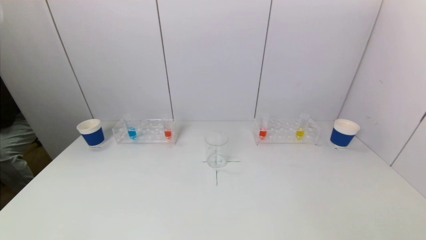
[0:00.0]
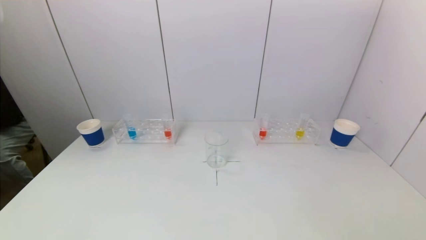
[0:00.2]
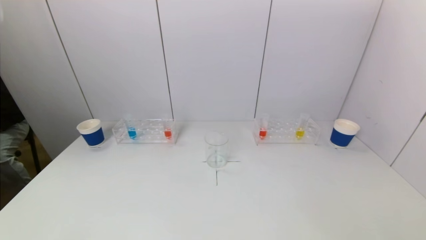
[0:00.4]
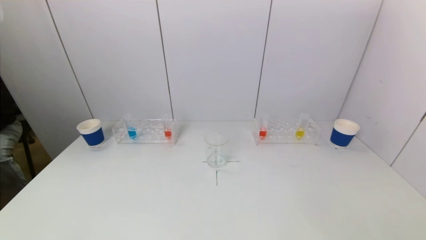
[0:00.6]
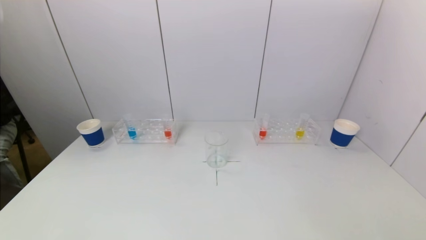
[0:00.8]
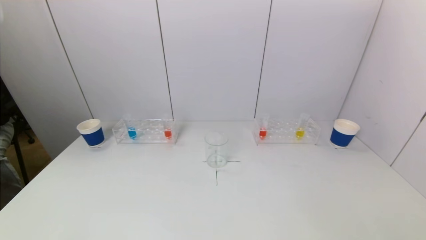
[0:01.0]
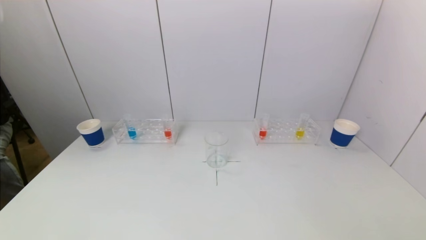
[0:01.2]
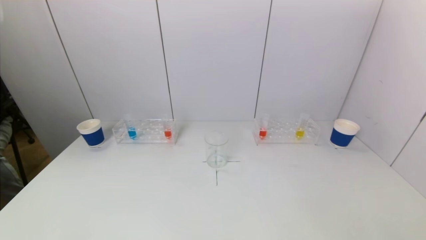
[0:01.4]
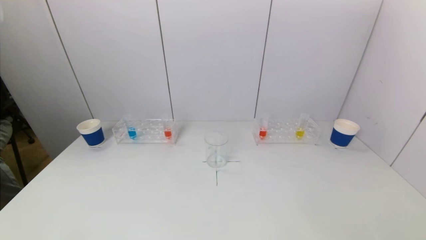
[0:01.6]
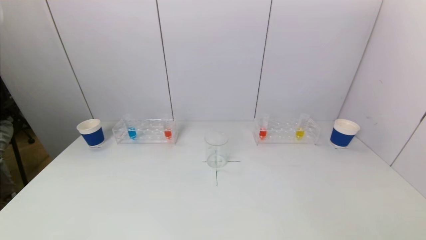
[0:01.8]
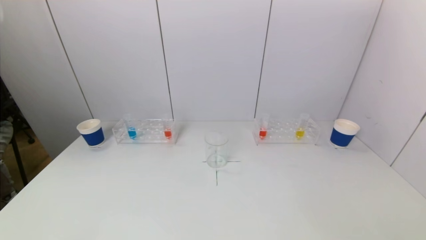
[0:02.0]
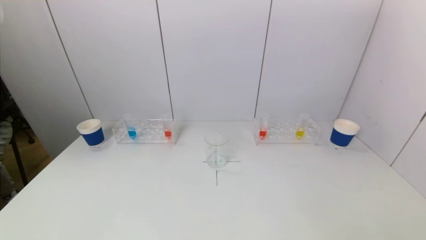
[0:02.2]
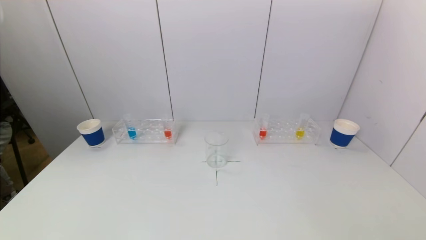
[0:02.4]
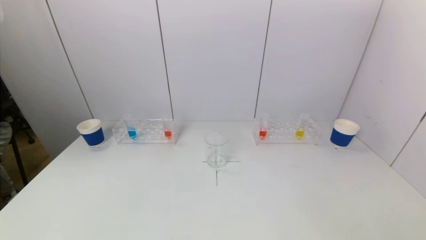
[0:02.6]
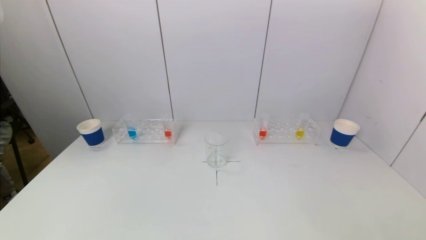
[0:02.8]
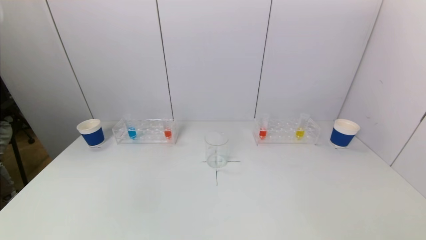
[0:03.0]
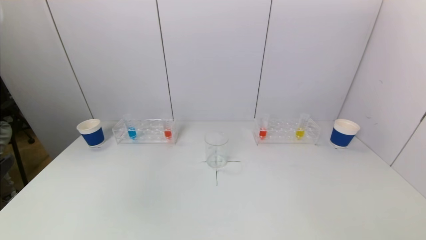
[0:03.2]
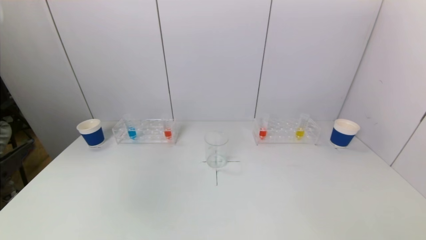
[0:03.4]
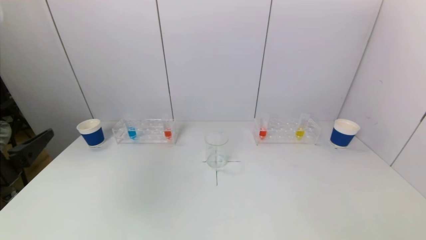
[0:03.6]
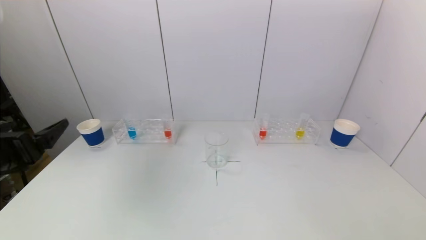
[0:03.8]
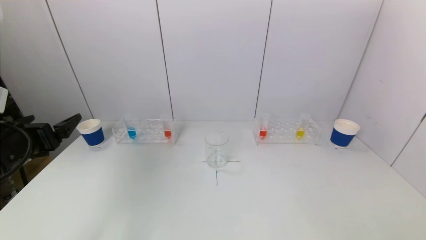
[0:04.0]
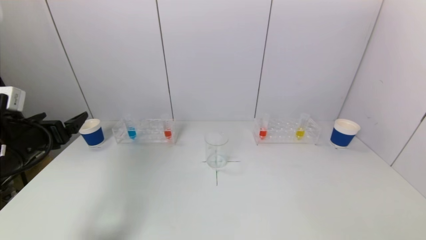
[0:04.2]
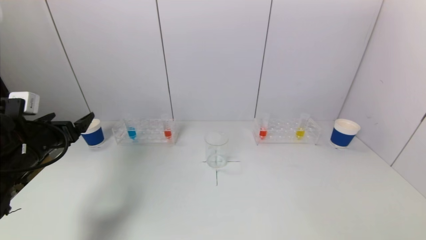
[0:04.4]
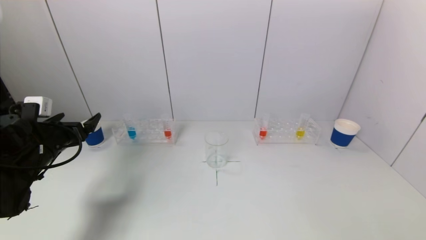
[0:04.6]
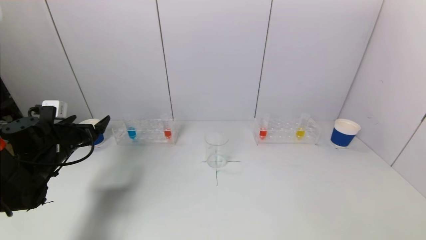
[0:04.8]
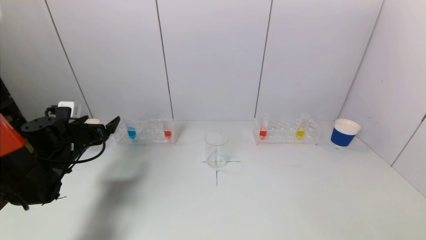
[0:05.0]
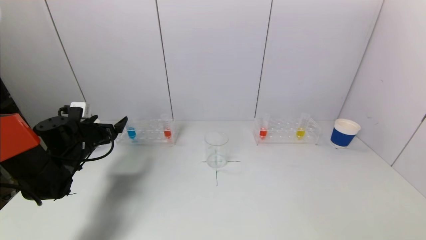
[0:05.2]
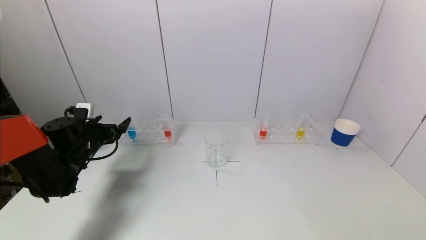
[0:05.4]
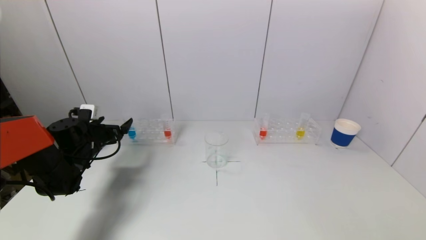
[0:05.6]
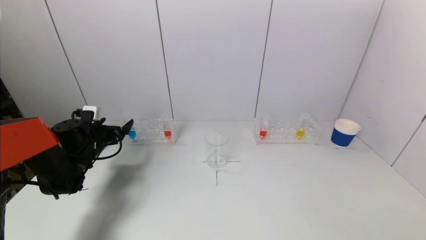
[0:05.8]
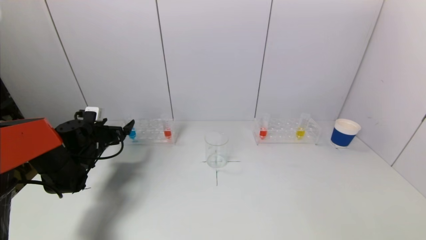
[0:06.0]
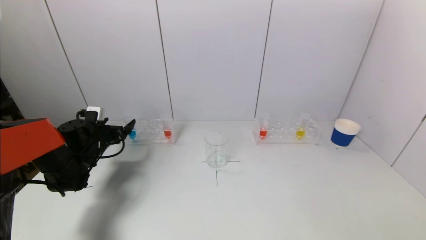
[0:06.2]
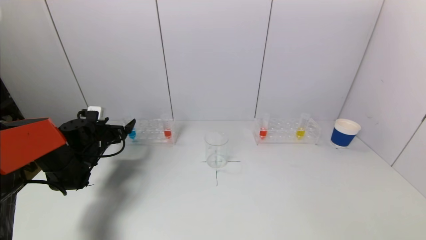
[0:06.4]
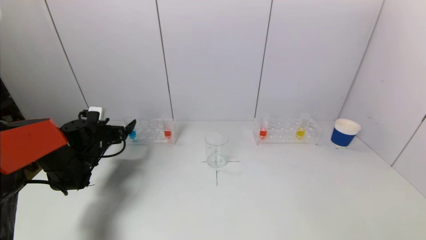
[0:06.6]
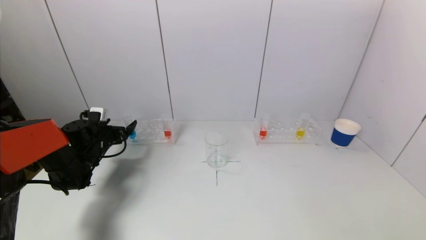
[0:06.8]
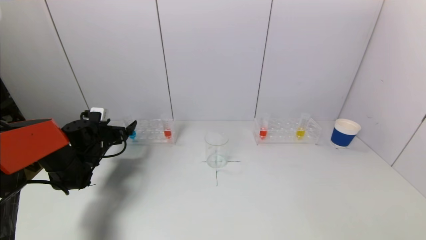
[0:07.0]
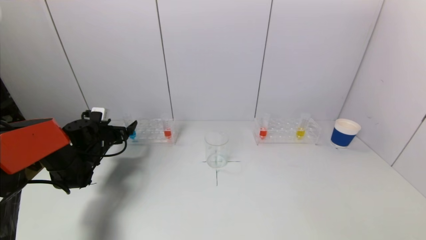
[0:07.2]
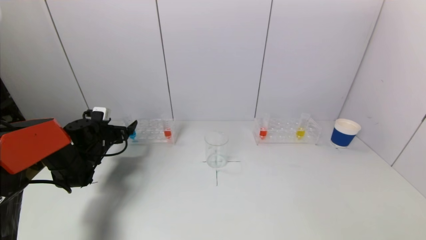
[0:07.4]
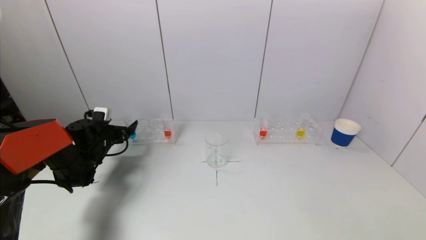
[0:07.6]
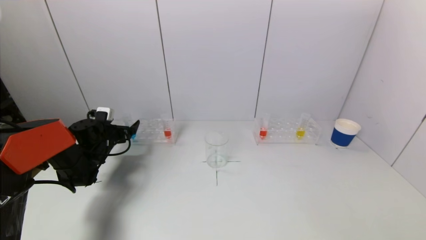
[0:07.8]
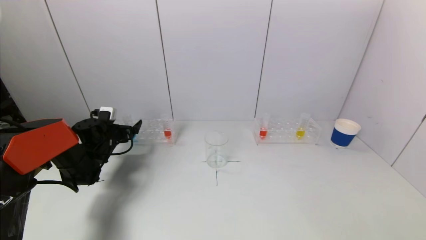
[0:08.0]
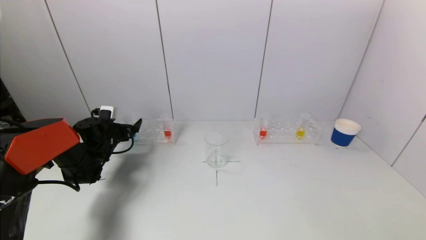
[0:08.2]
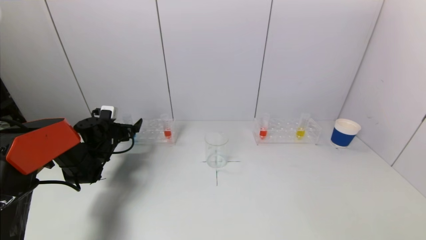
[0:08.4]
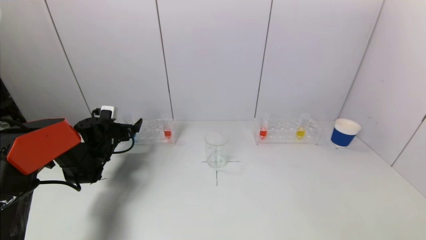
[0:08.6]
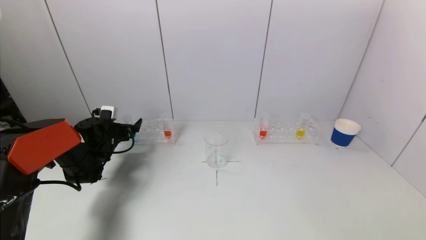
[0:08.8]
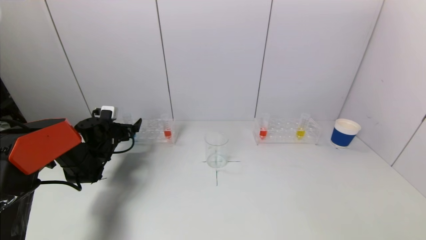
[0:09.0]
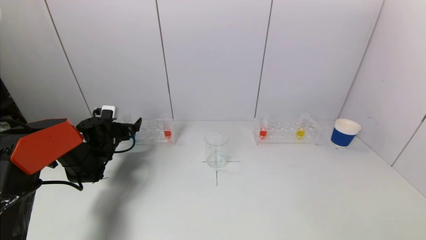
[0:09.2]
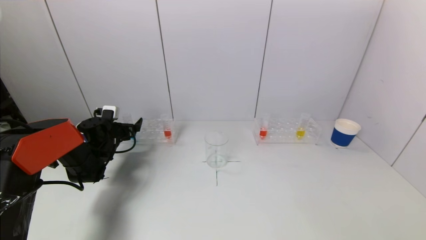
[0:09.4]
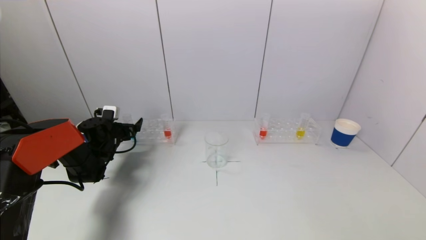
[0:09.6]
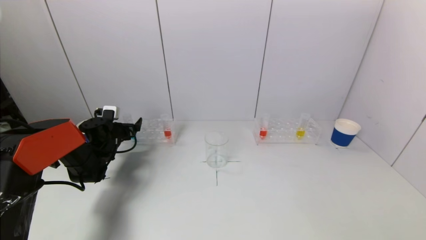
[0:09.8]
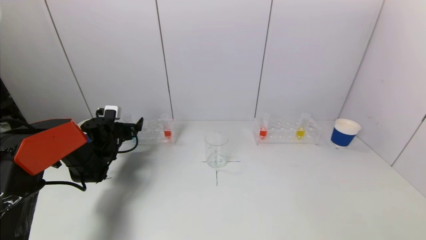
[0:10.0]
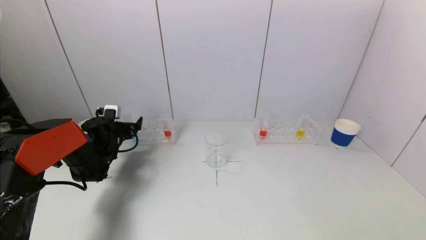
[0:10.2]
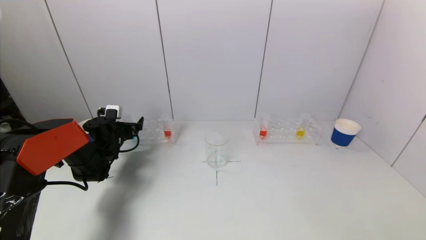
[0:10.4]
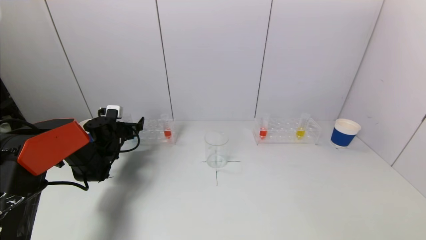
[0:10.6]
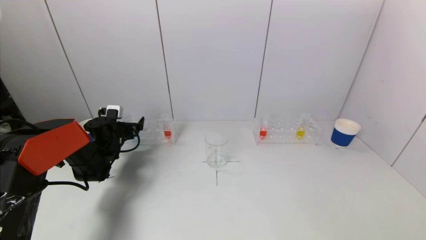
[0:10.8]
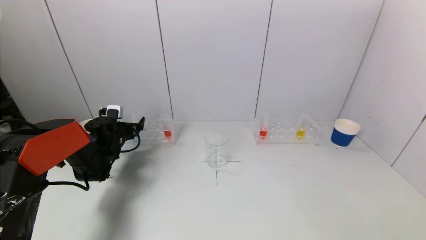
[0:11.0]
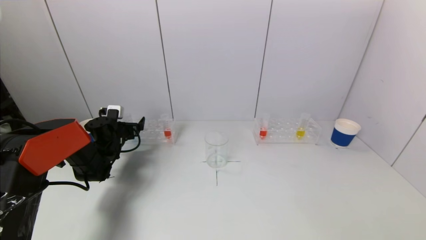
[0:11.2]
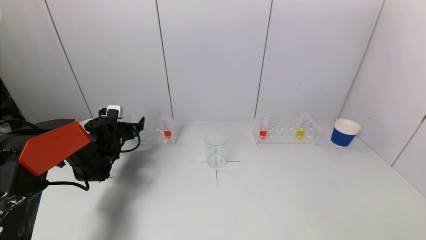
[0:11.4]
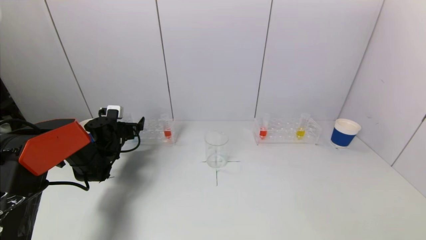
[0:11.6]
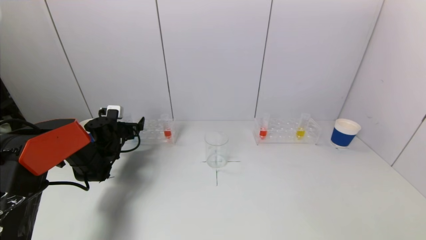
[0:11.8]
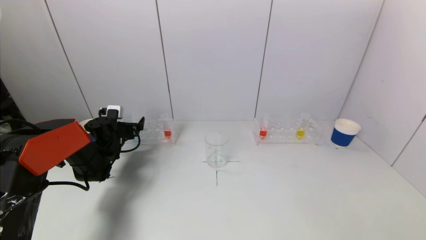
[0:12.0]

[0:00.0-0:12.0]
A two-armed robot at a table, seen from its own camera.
Task of the whole recording: pick up a test tube with pigment on left test tube rack and a test tube with pigment on right test tube rack by grippers and pour them into the beaker.
0:00.0 to 0:01.6: Both grippers stay about where they are.
0:03.0 to 0:04.4: The left gripper shifts about 25 cm forward.
0:04.4 to 0:06.0: The left gripper shifts some 15 cm forward and downward.
0:06.0 to 0:10.4: The grippers make only small movements.
0:10.4 to 0:12.0: Neither gripper changes place.

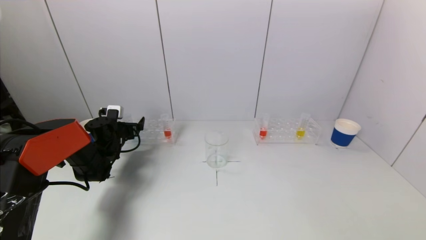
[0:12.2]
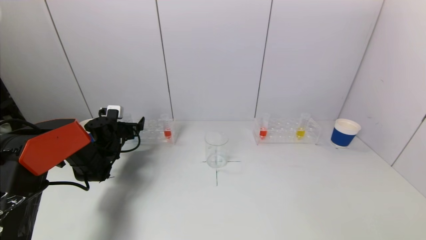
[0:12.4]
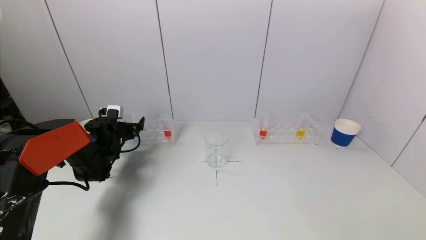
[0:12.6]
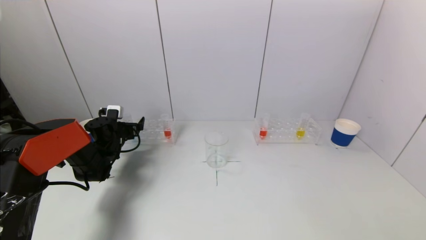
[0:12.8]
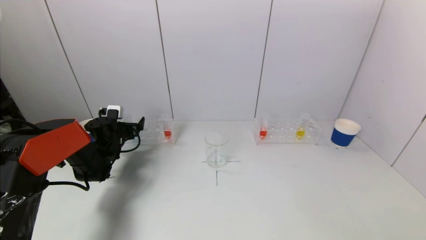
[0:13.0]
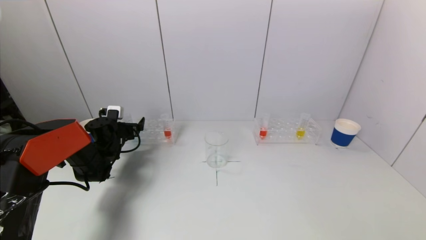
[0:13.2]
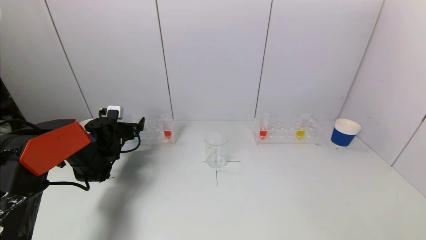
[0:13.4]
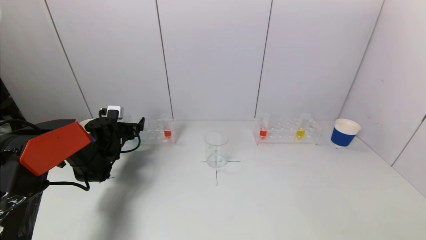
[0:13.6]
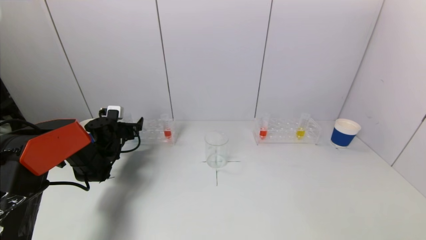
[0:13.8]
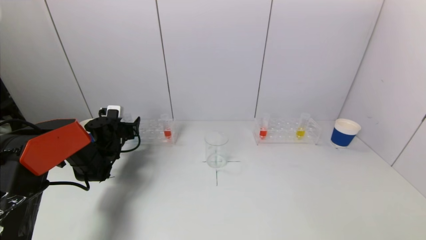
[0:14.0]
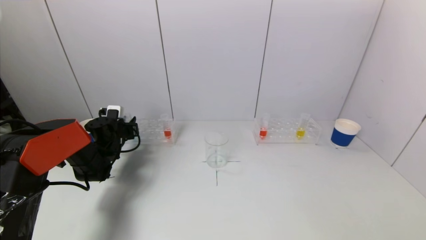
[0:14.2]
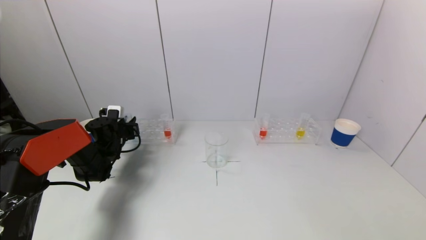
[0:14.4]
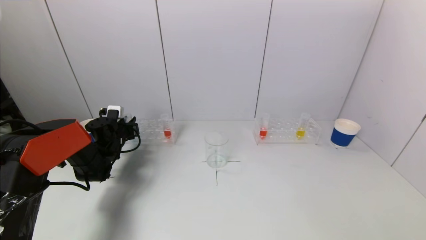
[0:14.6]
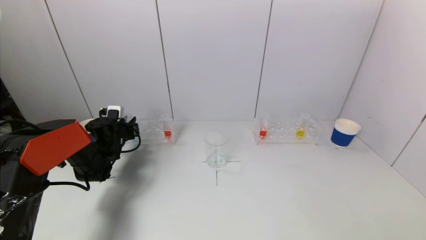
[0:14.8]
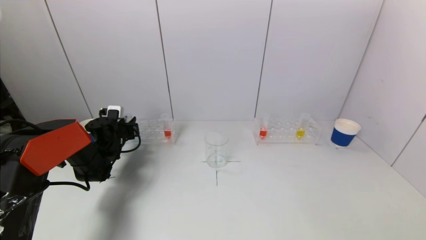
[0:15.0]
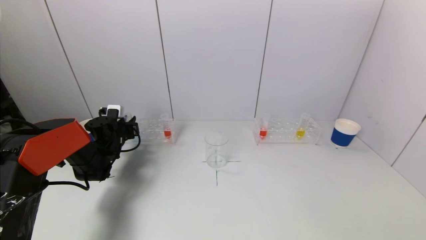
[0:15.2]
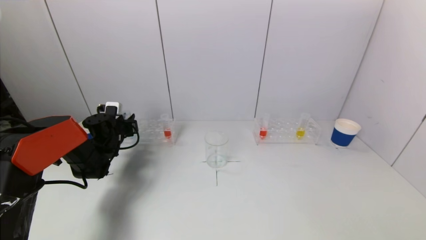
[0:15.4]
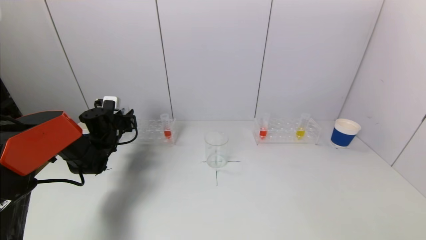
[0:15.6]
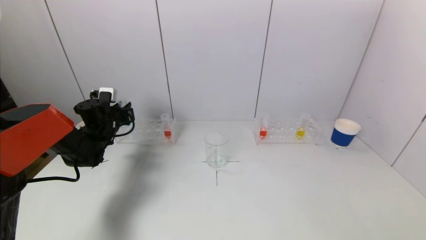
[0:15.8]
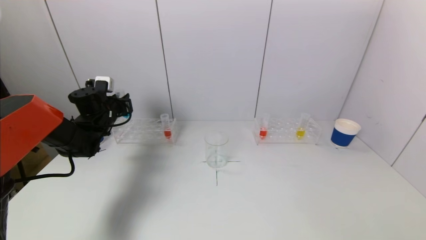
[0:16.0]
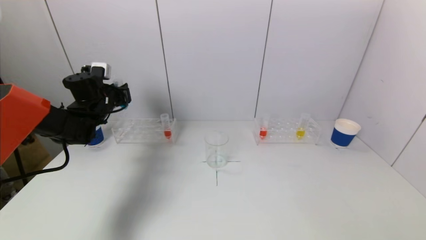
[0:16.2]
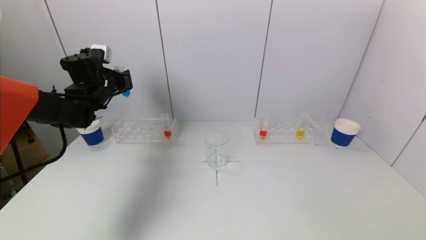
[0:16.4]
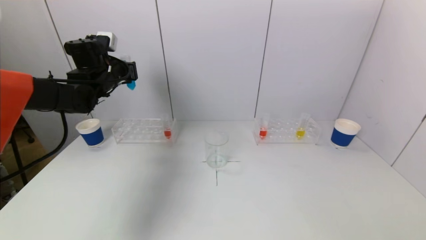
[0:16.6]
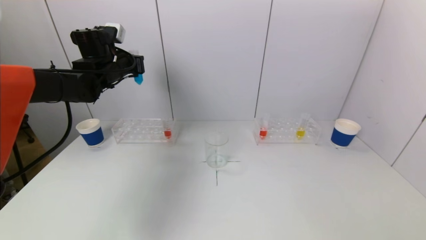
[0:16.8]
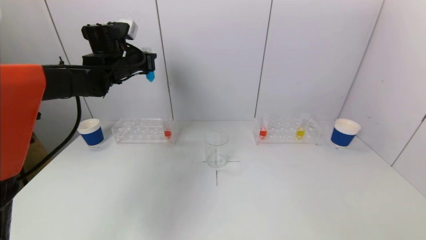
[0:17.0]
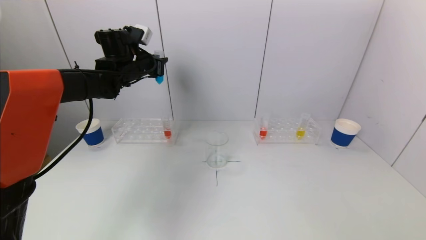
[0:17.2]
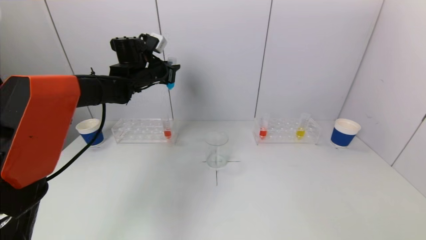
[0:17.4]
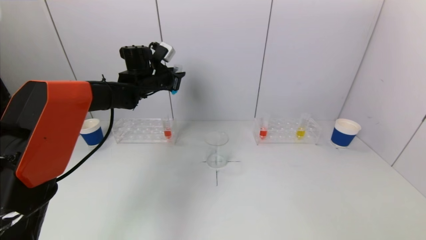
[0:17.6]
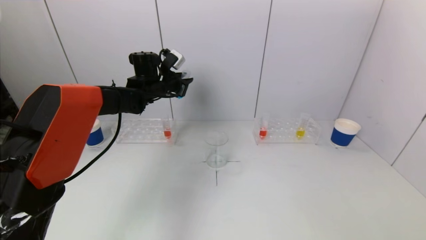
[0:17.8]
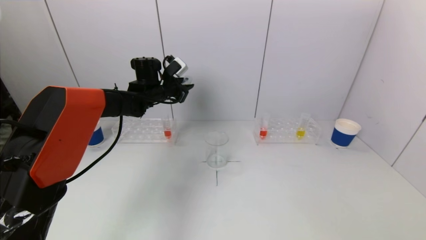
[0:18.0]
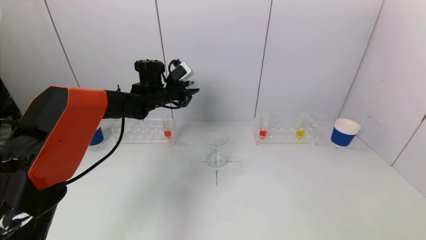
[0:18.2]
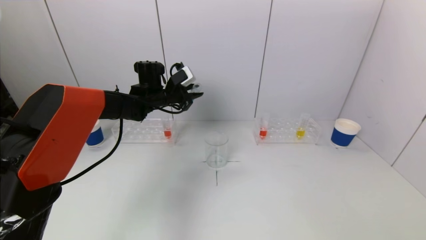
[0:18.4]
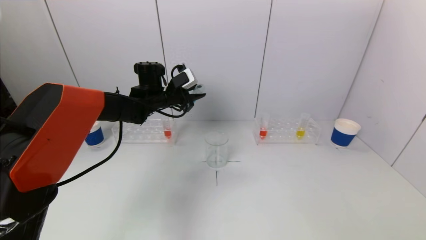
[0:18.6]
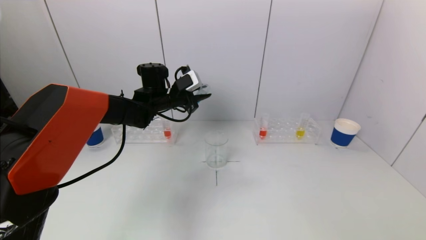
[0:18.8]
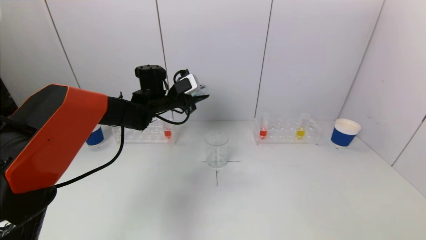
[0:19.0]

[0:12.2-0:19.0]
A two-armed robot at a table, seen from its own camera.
Task of the whole recording: pick up a test tube with pigment on left test tube rack and a test tube with pigment on right test tube rack by grippers and pour them into the beaker.
0:12.2 to 0:13.6: The two grippers keep their place.
0:15.0 to 0:16.2: The left gripper moves upward, approximately 15 cm.
0:16.2 to 0:17.6: The left gripper heads to the right, covering some 15 cm.
0:17.6 to 0:19.0: The left gripper ends up approximately 5 cm from where it was.
